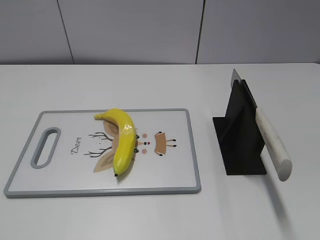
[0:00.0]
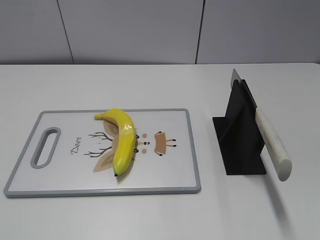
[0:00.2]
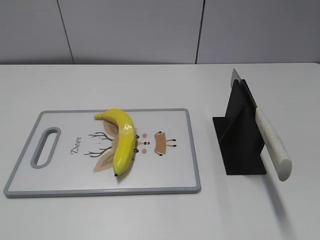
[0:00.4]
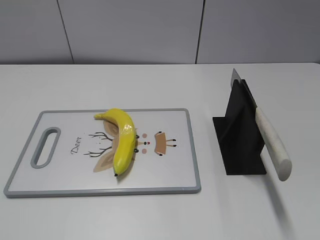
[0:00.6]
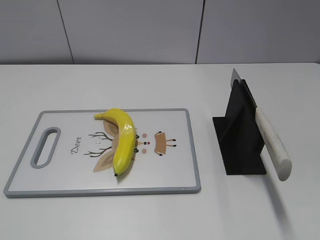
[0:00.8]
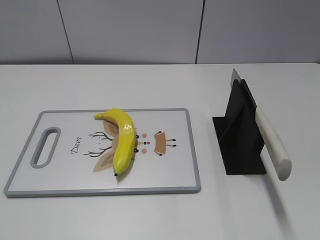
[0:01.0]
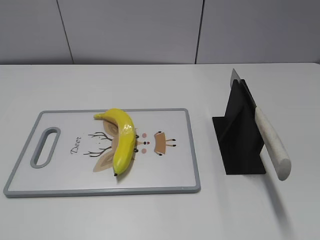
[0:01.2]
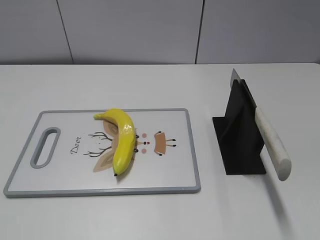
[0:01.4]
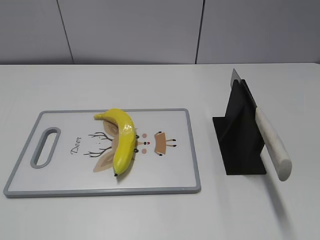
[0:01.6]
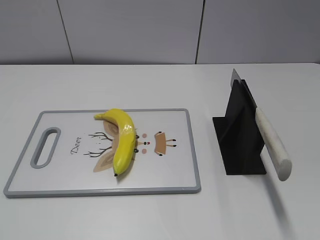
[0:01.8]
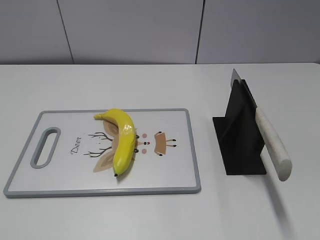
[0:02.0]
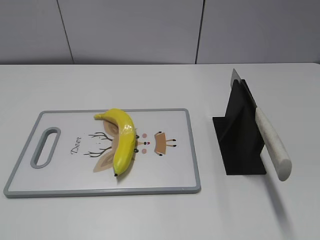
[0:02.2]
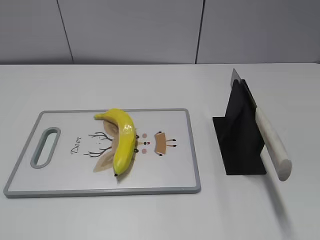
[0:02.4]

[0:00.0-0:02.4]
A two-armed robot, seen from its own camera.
Task of the whole recording: cut plastic banana.
0:00.0 to 0:01.2: Neither gripper changes place.

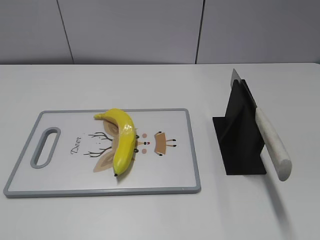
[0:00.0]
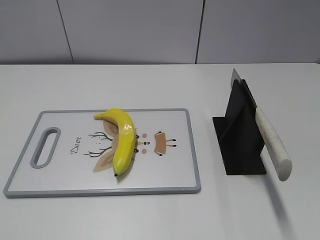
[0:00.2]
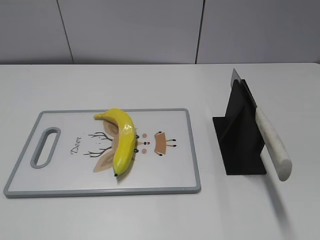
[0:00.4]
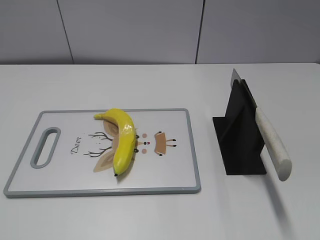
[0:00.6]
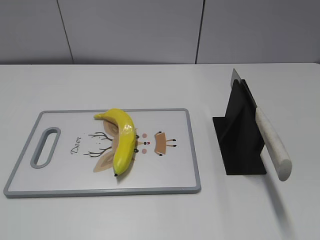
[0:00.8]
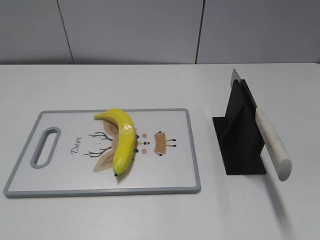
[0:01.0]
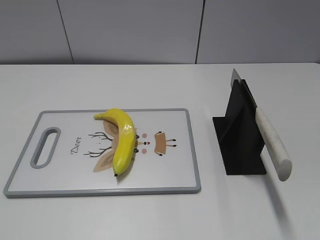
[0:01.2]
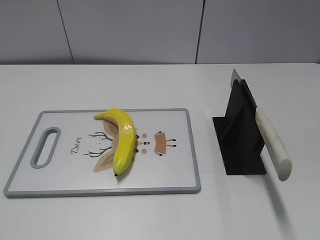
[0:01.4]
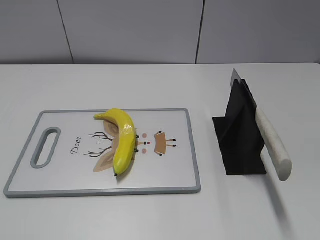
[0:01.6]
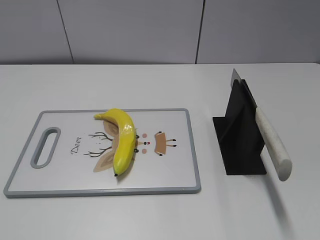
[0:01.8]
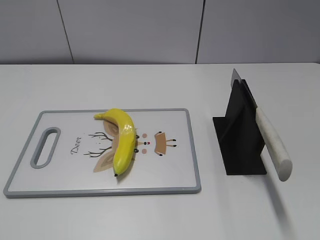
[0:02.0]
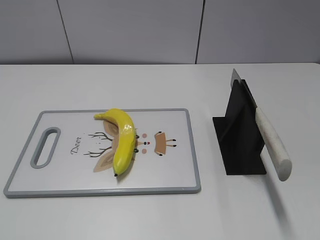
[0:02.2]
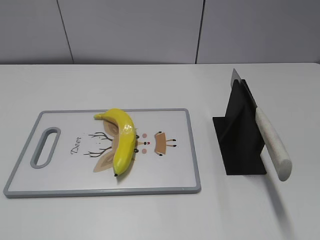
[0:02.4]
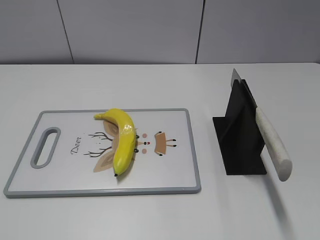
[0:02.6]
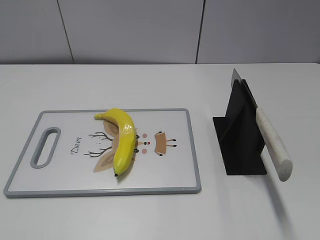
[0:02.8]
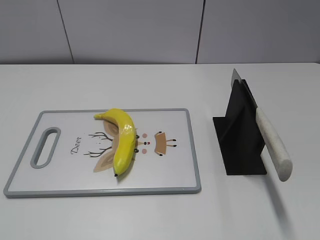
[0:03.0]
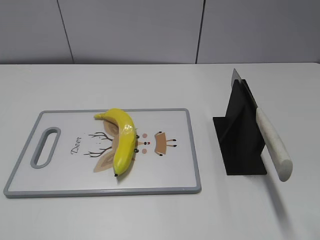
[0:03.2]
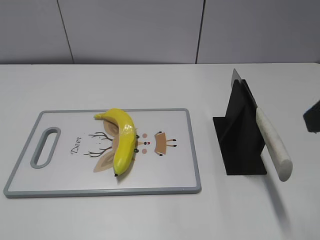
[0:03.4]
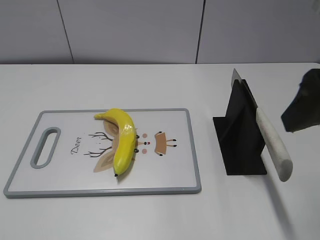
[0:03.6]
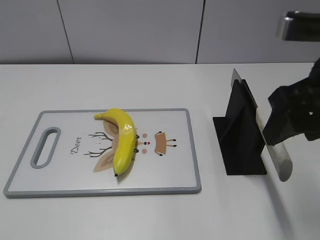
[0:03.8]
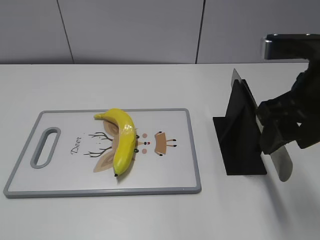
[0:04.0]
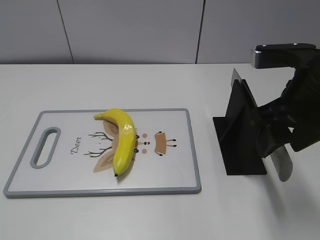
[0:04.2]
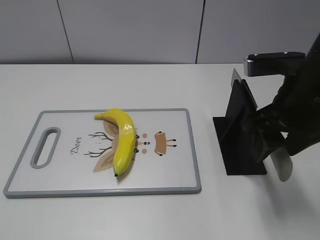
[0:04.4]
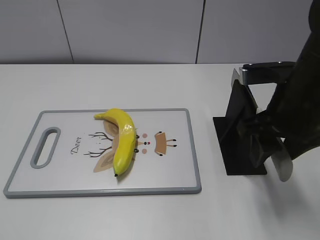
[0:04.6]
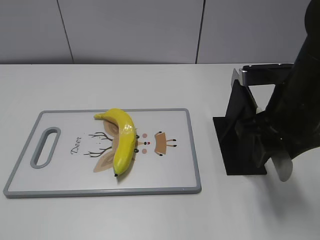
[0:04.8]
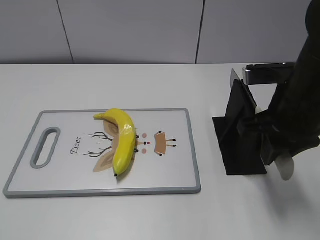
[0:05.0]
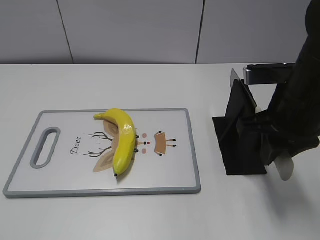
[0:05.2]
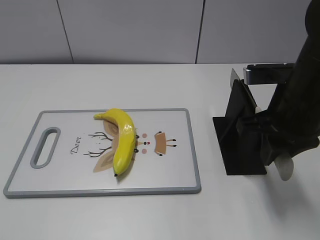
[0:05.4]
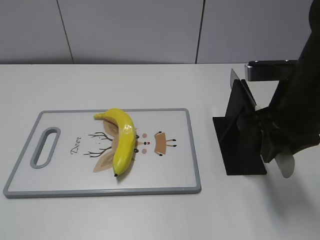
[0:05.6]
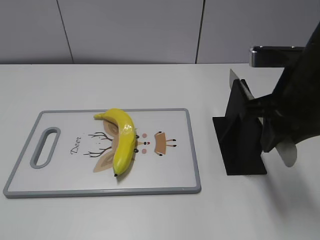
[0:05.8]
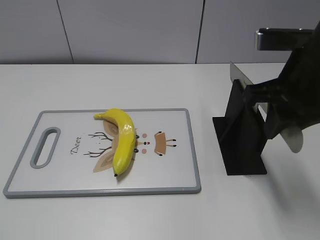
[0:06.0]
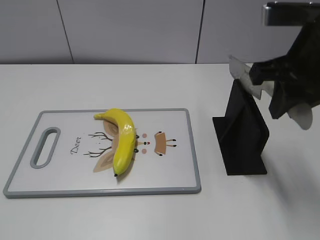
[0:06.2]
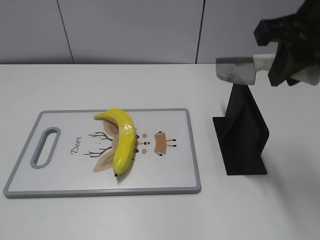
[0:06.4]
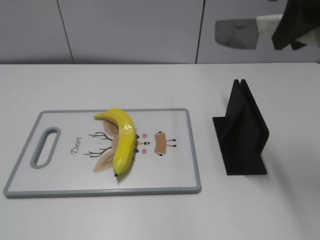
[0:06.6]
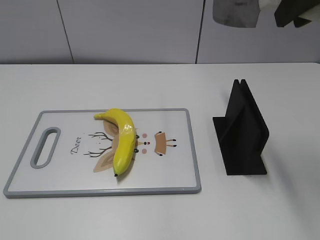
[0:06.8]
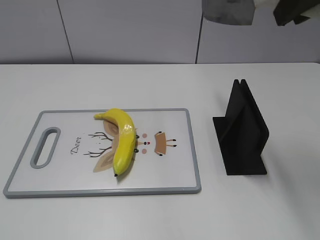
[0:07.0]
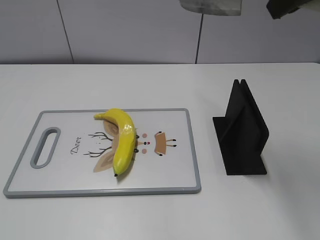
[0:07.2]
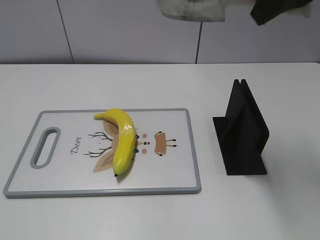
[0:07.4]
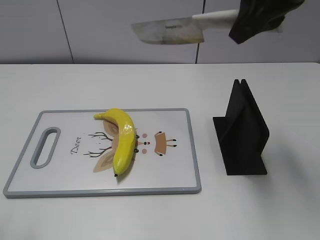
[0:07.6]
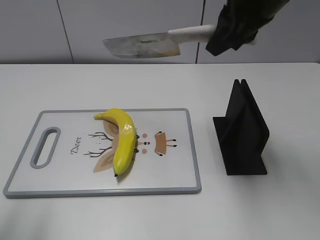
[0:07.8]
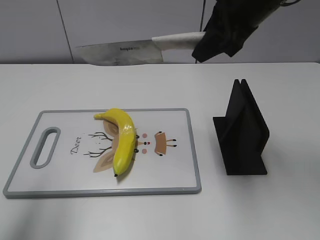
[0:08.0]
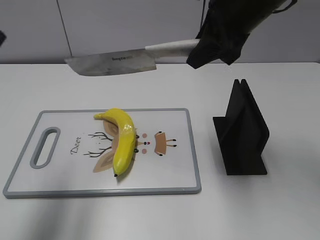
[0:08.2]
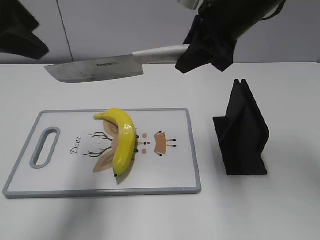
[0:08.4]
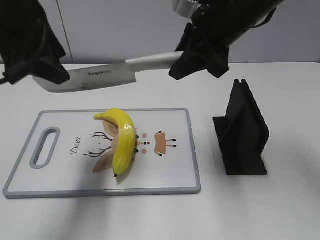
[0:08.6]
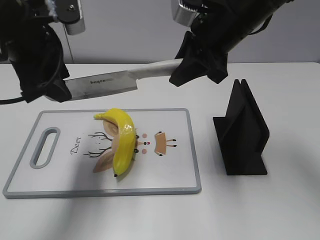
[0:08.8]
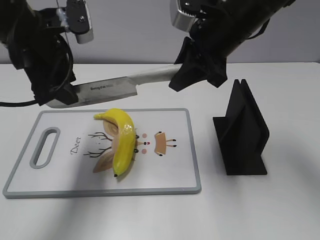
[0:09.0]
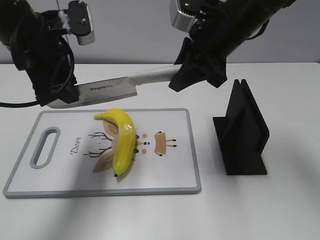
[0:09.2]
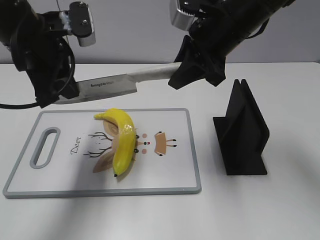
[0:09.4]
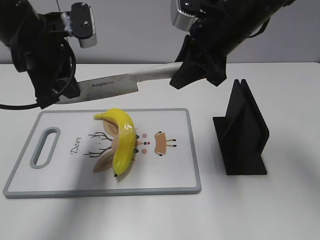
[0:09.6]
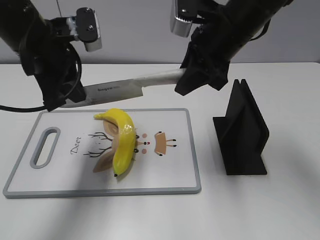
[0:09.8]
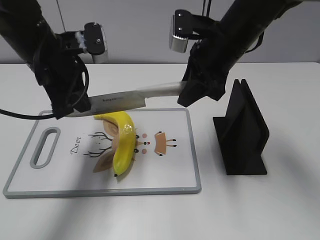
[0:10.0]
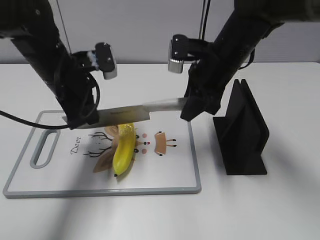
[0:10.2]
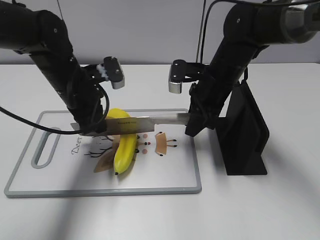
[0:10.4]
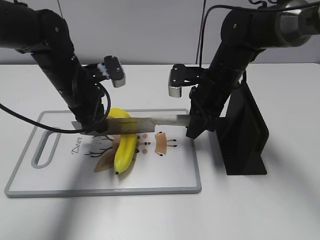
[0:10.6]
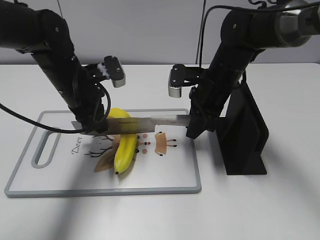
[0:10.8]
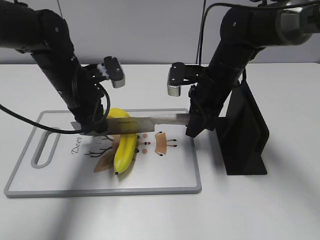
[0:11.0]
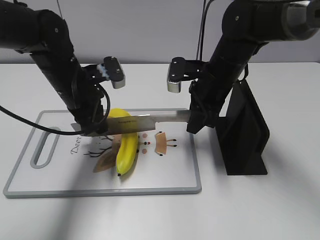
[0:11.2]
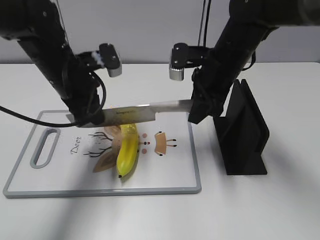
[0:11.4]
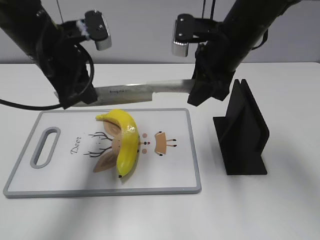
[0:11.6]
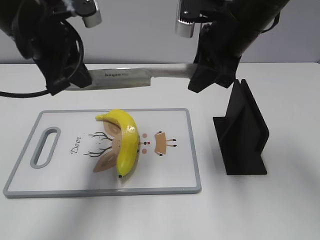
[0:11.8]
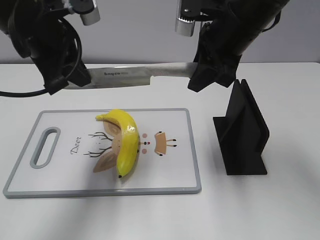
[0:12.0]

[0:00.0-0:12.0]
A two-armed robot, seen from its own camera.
Task of the whole recording: cut plastic banana.
Step, 0:00.0 to 0:06.8: Grab the knife handle with your right hand.
Step, 0:07.0 to 0:11.8: Hold the blade with your left hand.
0:03.0 to 0:04.4: The right gripper heads forward, downward and to the left, covering some 20 cm.
0:04.4 to 0:06.0: The right gripper closes.
0:06.0 to 0:07.6: The left gripper moves forward, about 10 cm, while the right gripper travels upward and forward by some 10 cm.
0:07.6 to 0:09.0: The left gripper goes some 25 cm forward and to the right, while the right gripper is displaced downward and forward by roughly 10 cm.
0:09.0 to 0:10.4: Both grippers move downward, some 10 cm. The left gripper closes.
0:10.4 to 0:12.0: The grippers both shift upward by approximately 15 cm.

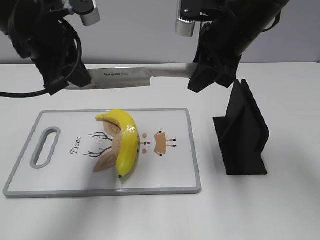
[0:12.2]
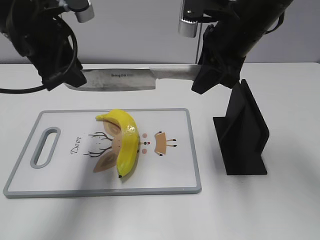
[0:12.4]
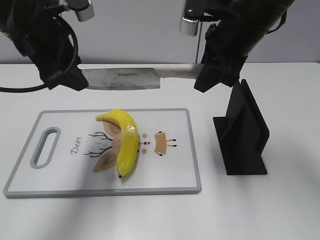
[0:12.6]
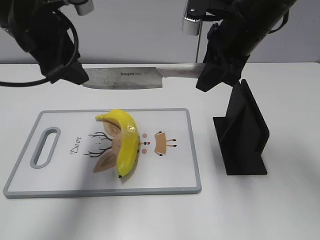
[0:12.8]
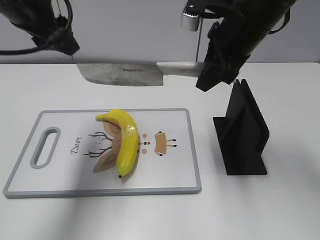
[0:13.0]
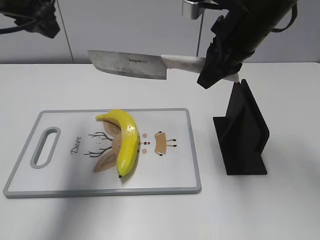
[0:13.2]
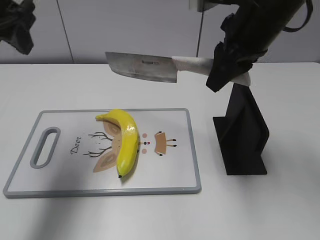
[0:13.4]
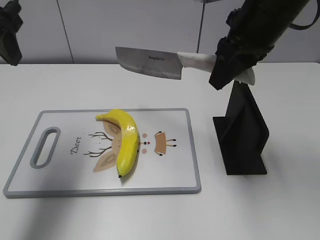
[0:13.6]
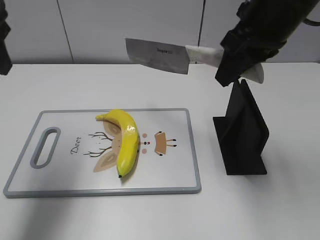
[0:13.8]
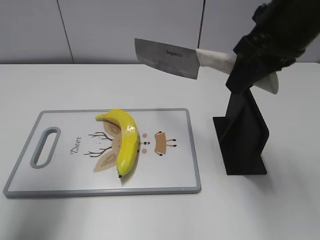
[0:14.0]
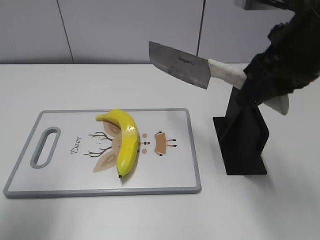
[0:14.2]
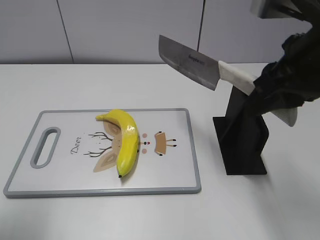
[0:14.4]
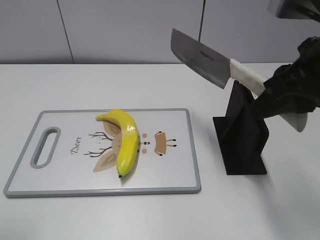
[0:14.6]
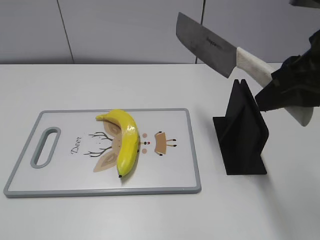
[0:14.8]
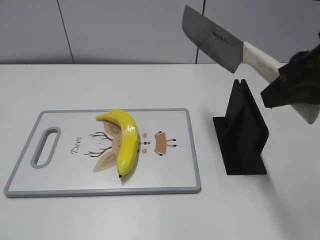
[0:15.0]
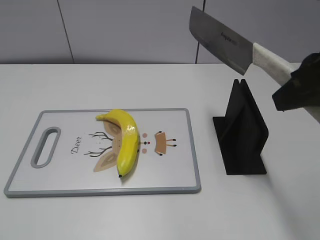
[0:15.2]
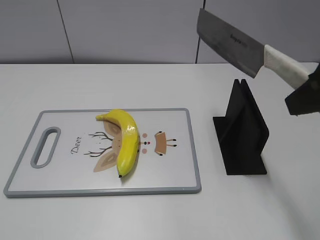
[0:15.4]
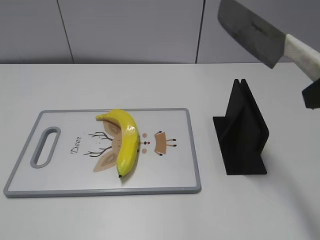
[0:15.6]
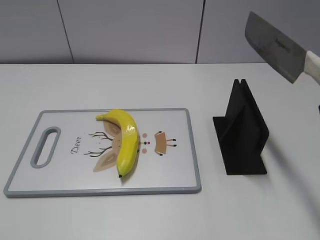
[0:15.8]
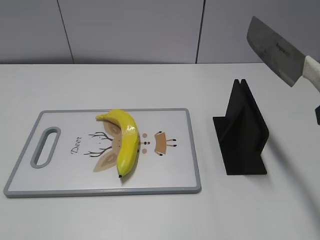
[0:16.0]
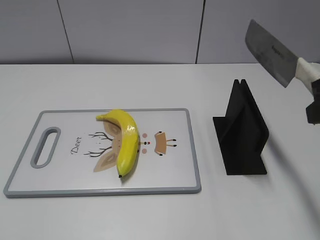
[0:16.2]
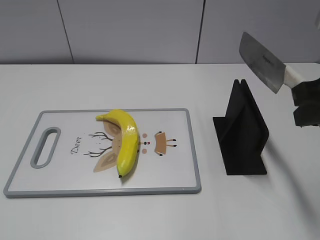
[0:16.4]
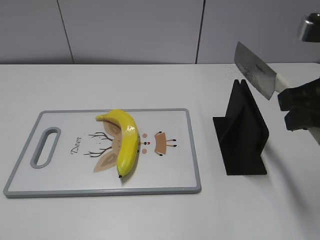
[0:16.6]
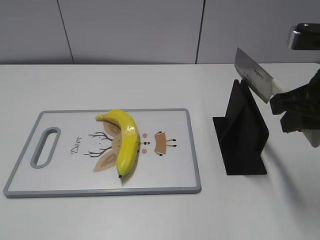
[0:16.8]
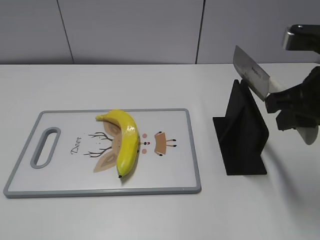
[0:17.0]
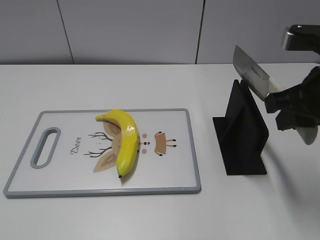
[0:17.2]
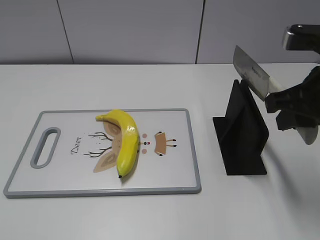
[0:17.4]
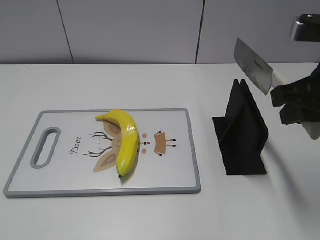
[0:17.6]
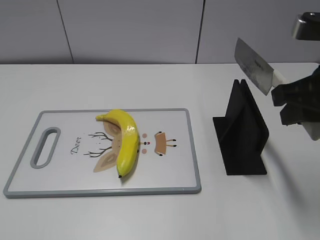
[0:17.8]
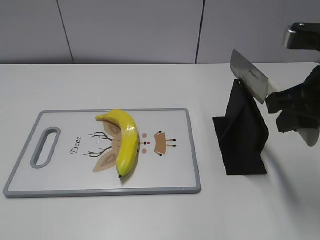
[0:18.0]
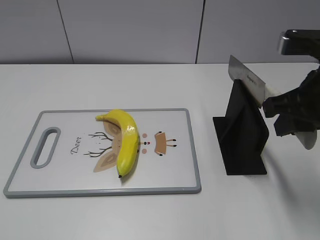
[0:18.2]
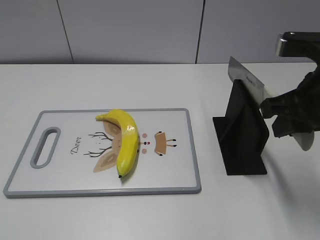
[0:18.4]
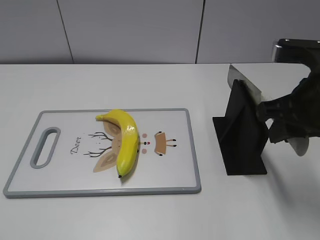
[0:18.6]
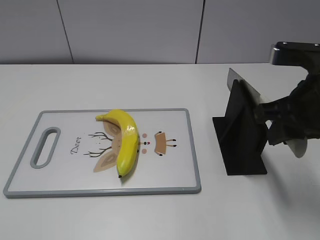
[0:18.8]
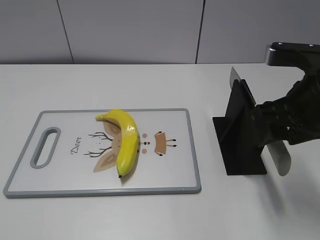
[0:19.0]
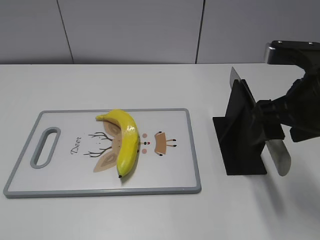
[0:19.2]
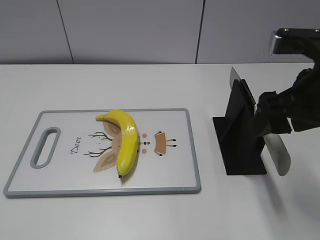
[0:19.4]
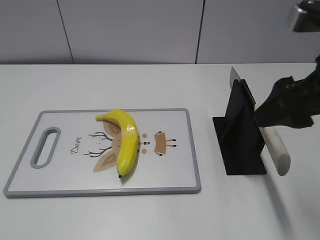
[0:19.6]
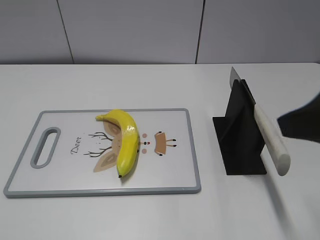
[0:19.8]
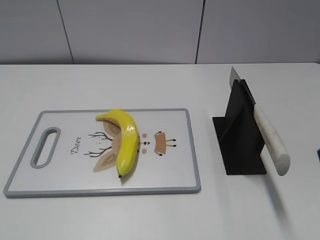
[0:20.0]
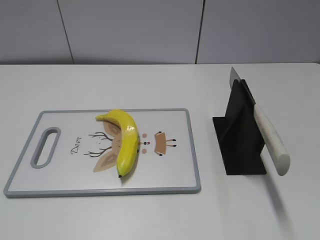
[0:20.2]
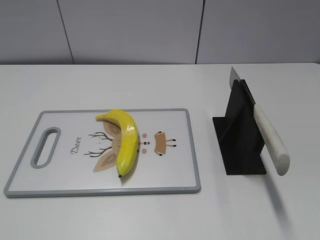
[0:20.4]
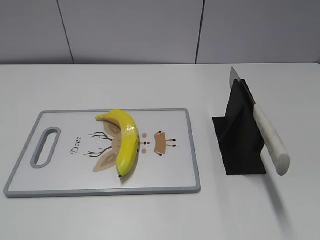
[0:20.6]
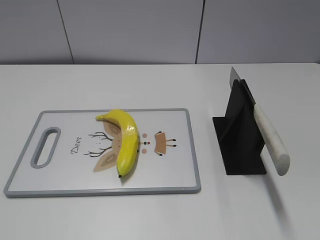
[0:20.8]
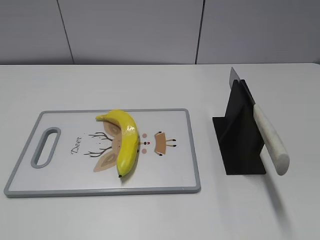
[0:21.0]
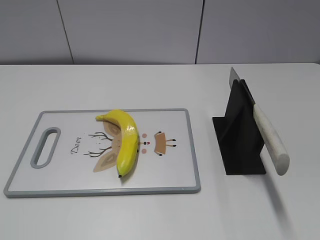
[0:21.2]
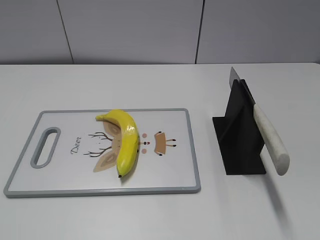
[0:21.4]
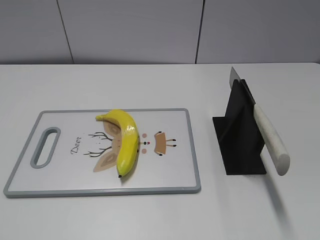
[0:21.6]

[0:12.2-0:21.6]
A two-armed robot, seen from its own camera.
Task of the whole recording: cut plastic banana.
Step, 0:12.2 to 0:13.8: Cut the banana with your right hand.
Step, 0:14.0 to 0:15.4: Secure the blade with your left hand.
0:12.2 to 0:13.8: The left gripper is displaced to the left and upward by some 10 cm, and opens up, while the right gripper ends up some 5 cm from where it was.
0:13.8 to 0:15.4: The left gripper travels backward by roughly 30 cm; the right gripper shifts some 15 cm backward and to the right.
0:15.4 to 0:17.0: The right gripper moves downward, approximately 5 cm.
0:18.4 to 0:20.0: The right gripper goes approximately 15 cm backward and upward, and opens.
